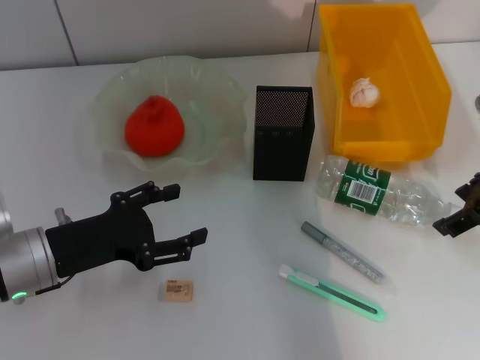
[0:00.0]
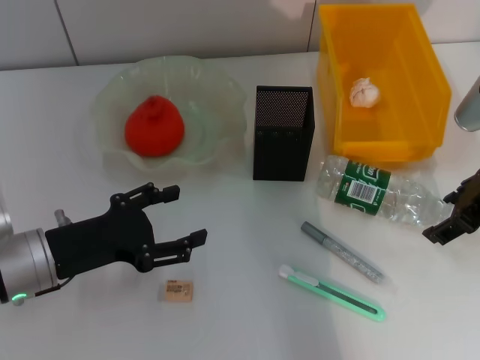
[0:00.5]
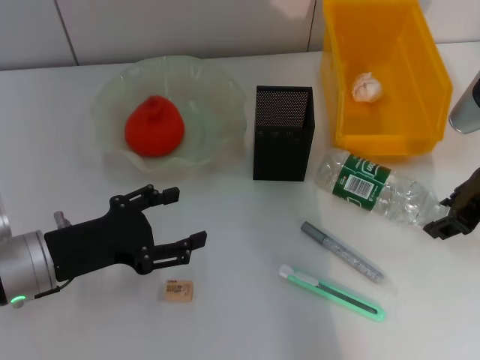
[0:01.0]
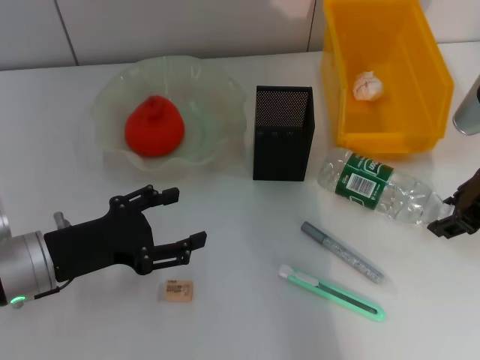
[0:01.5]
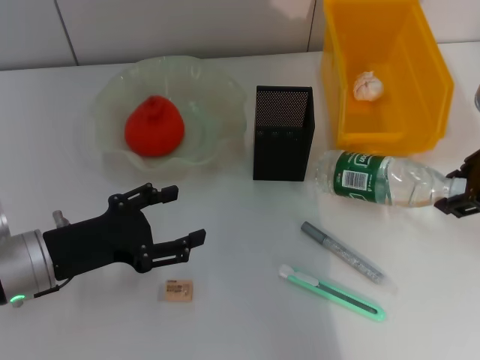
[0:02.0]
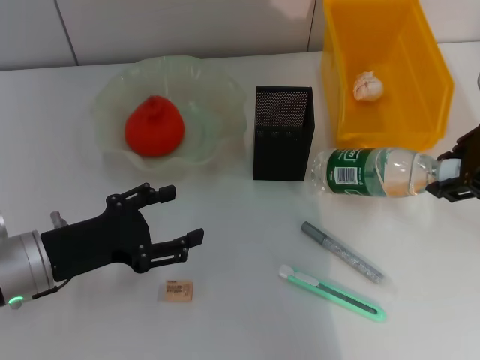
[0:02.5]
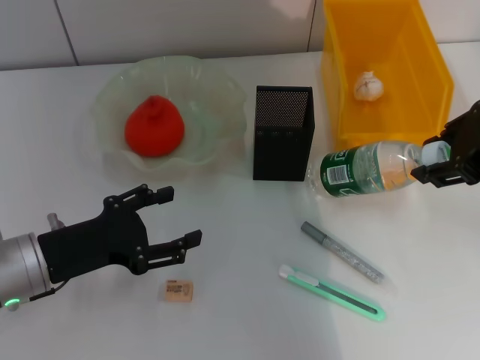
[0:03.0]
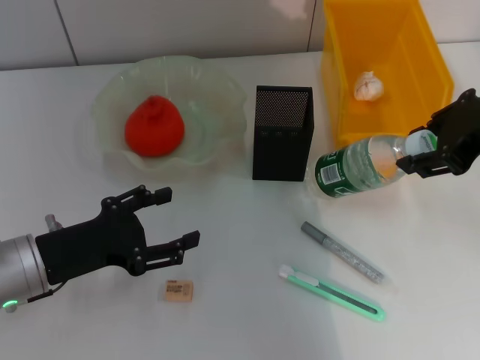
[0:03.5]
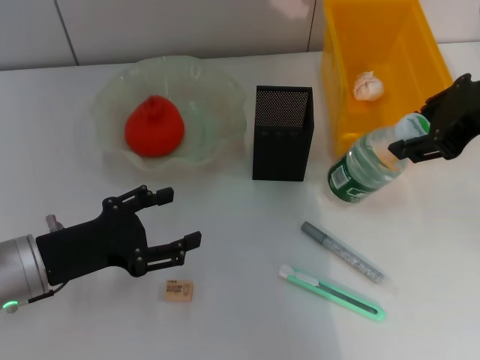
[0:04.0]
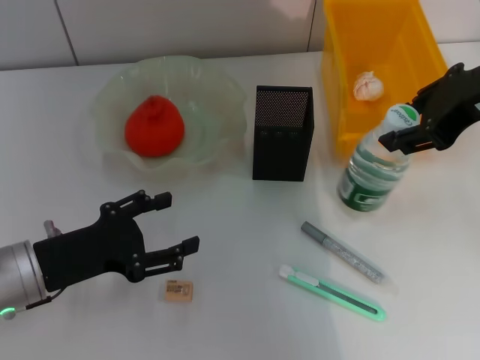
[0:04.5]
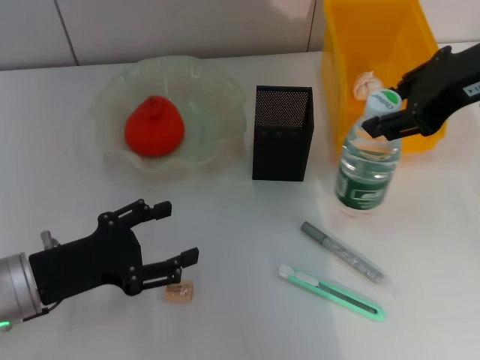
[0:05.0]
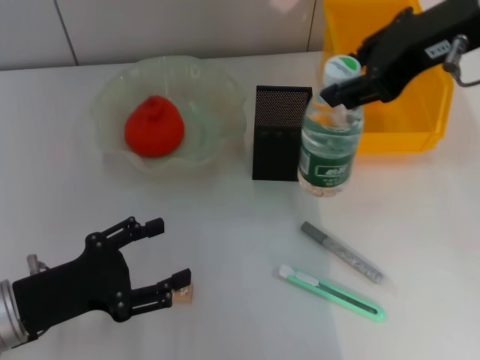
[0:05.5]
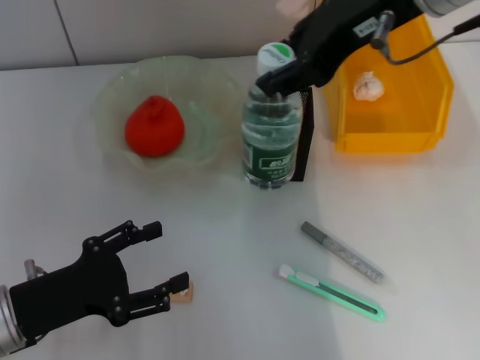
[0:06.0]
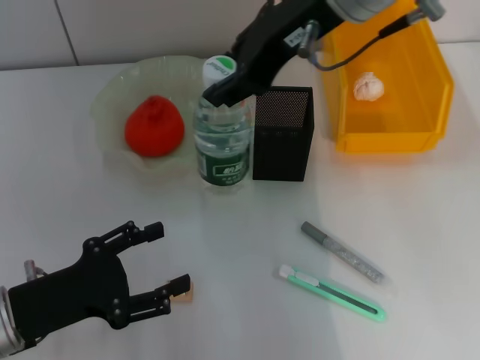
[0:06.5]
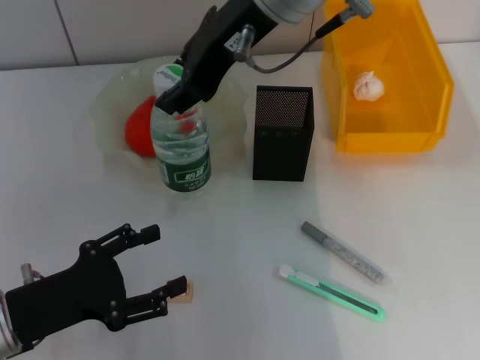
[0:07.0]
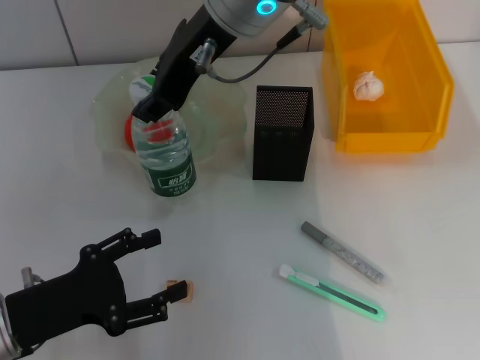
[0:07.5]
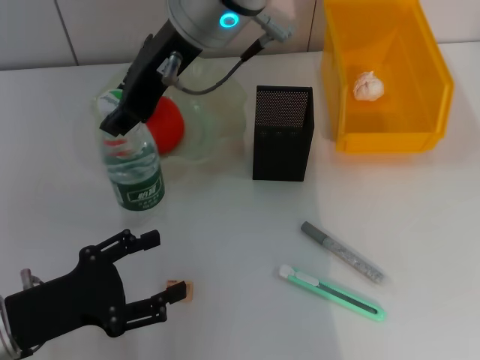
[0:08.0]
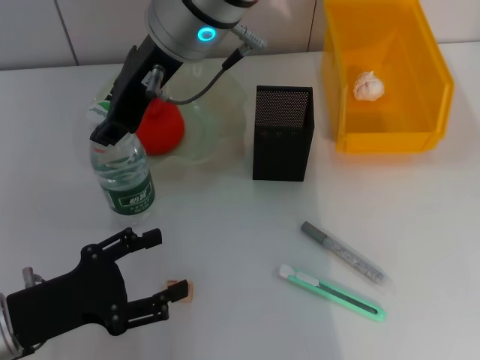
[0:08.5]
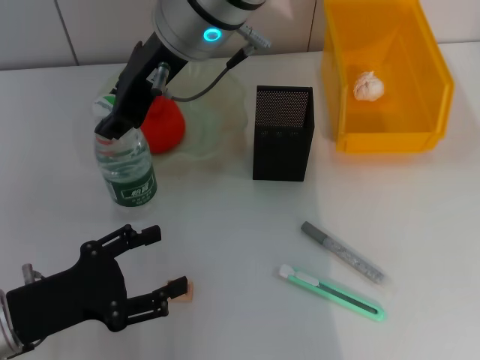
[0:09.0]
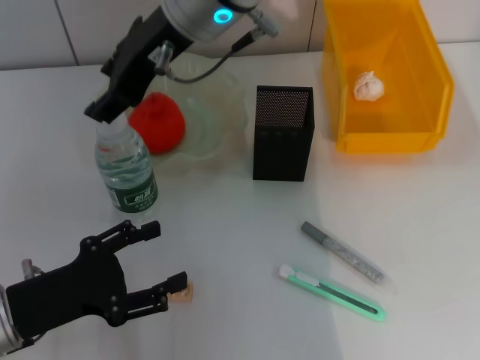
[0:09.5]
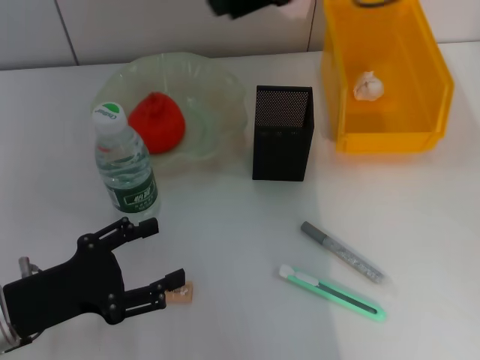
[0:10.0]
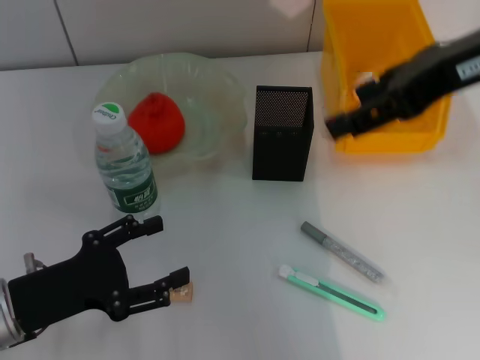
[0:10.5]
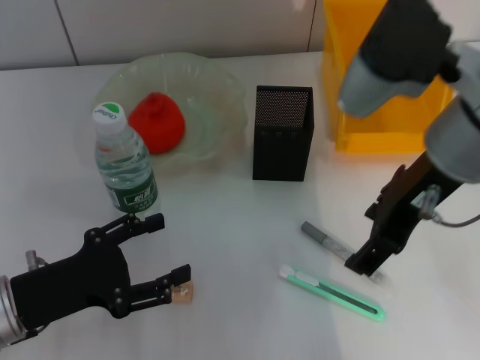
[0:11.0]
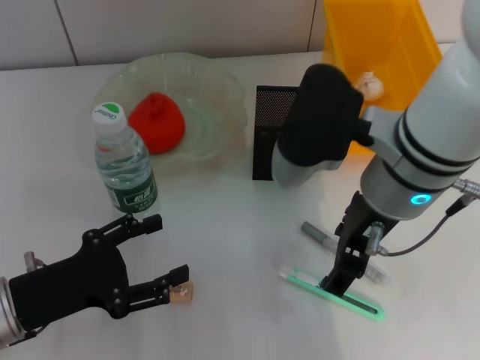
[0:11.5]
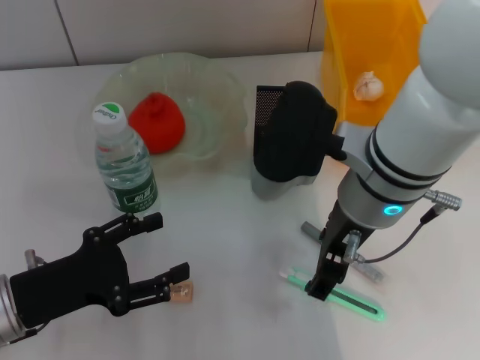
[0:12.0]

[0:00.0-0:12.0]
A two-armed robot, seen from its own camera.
Step, 0:02.0 to 0:09.0: Place the water bottle on the table with the right hand.
0:00.0 to 0:02.0: The right gripper closes its fingers.
0:02.0 to 0:04.0: The right gripper travels upward by approximately 5 cm.
0:04.0 to 0:06.0: The right gripper is displaced to the left and upward by roughly 15 cm, while the left gripper shifts by some 5 cm.
0:06.0 to 0:08.0: The right gripper goes roughly 15 cm to the left.
0:08.0 to 0:10.0: The right gripper travels to the right by some 15 cm, and opens.
0:10.0 to 0:12.0: The right gripper heads downward, covering roughly 15 cm.

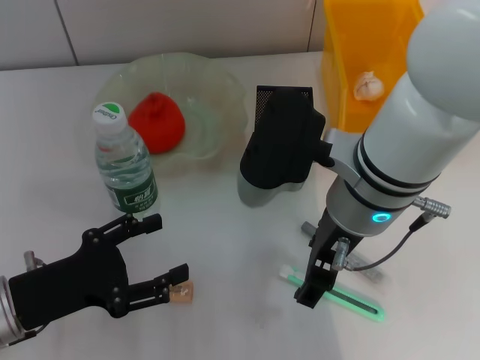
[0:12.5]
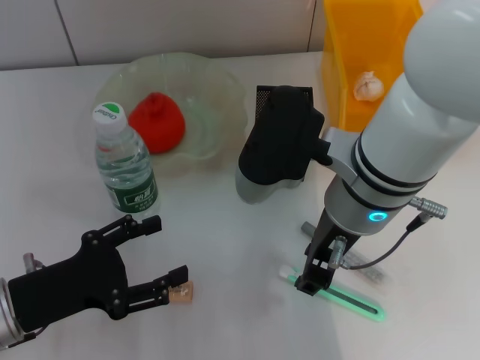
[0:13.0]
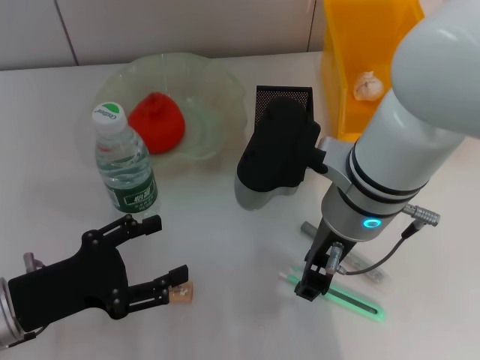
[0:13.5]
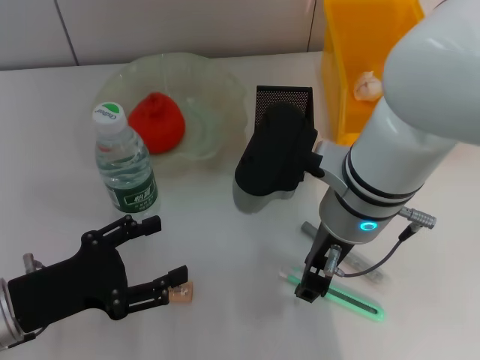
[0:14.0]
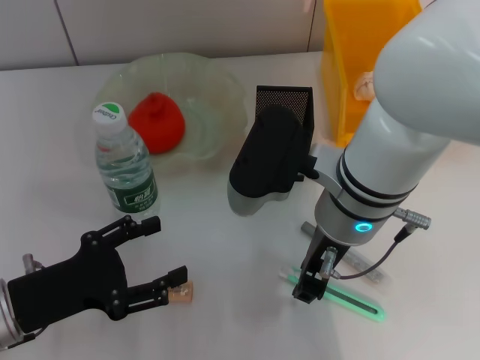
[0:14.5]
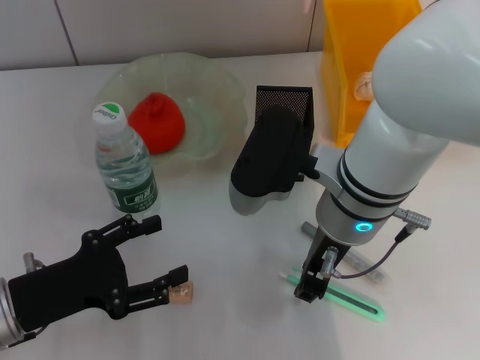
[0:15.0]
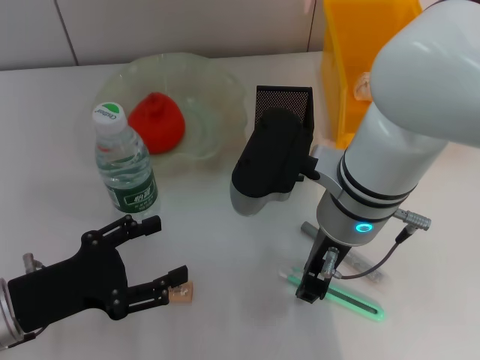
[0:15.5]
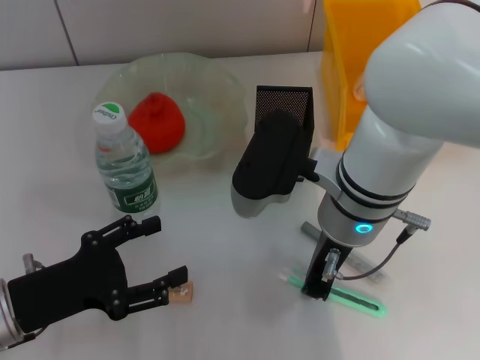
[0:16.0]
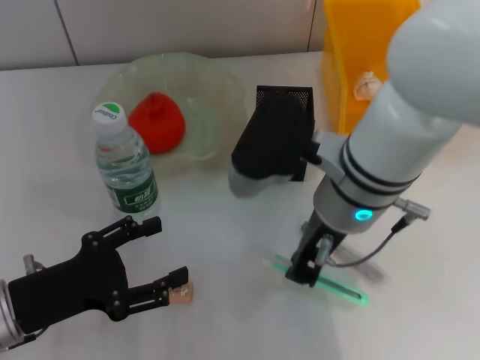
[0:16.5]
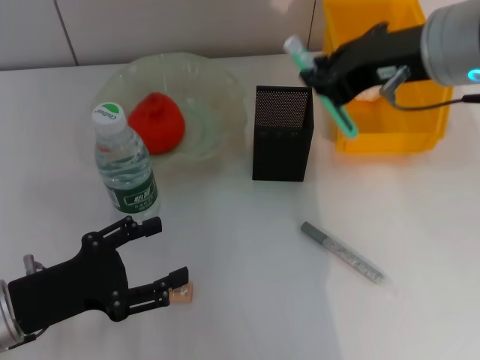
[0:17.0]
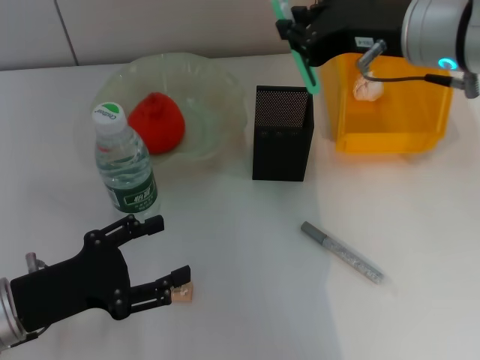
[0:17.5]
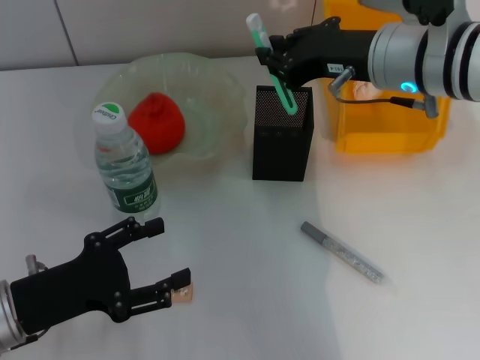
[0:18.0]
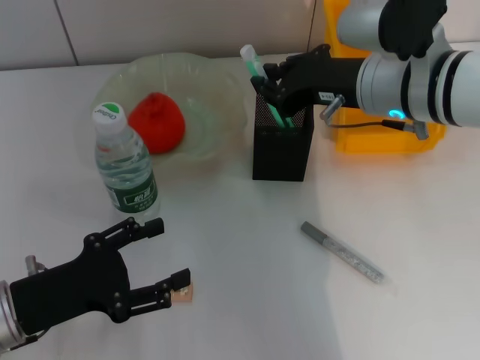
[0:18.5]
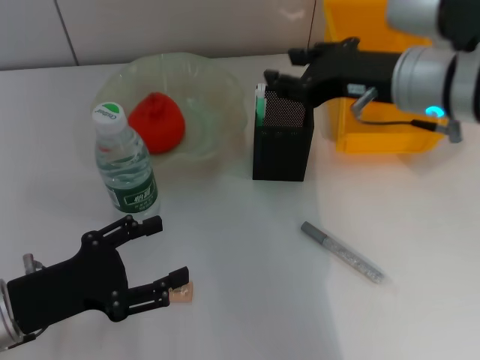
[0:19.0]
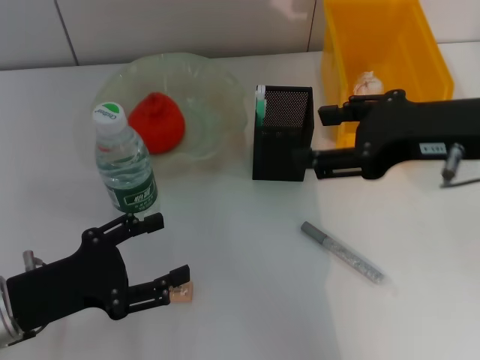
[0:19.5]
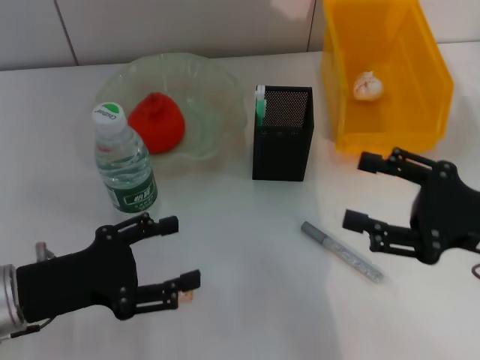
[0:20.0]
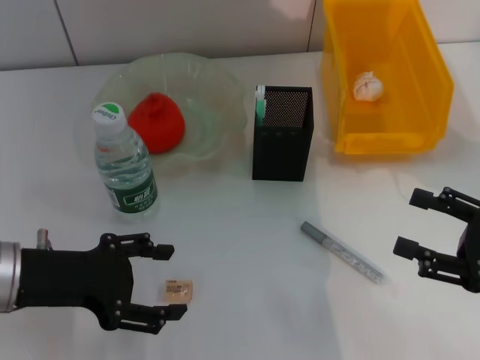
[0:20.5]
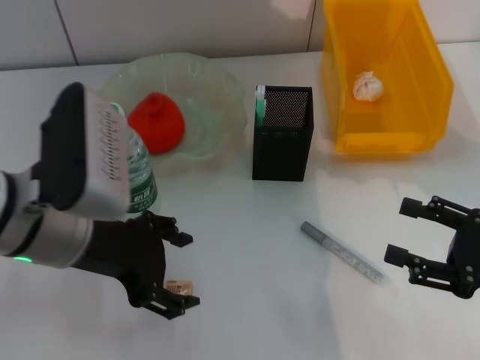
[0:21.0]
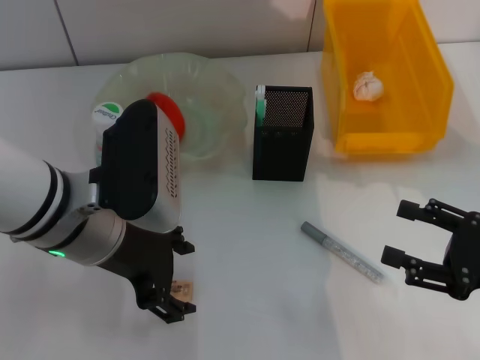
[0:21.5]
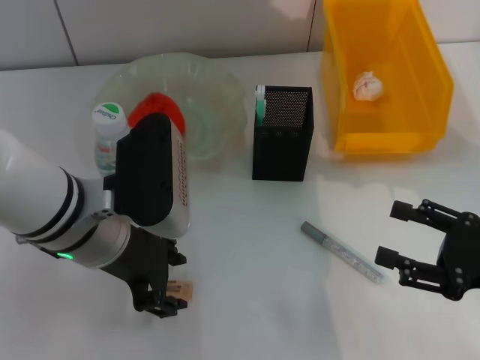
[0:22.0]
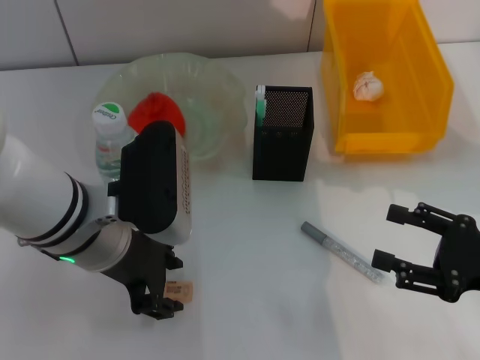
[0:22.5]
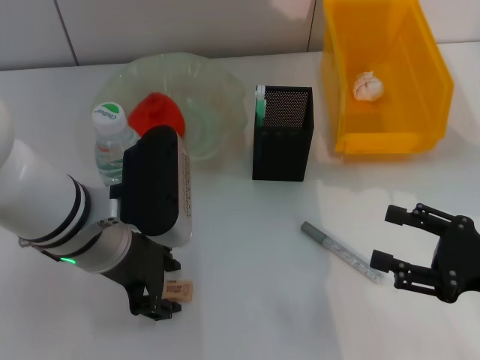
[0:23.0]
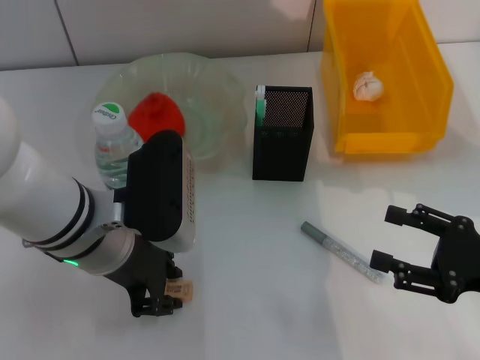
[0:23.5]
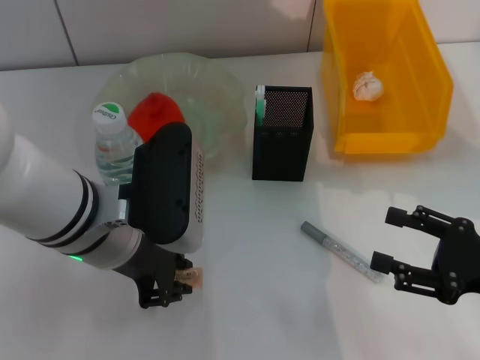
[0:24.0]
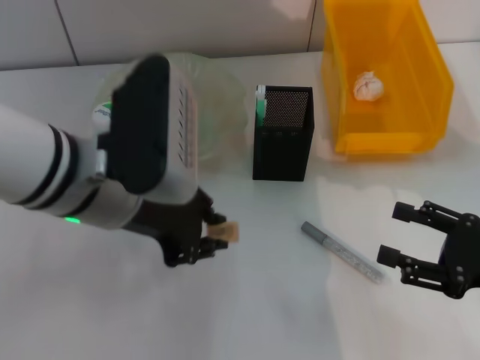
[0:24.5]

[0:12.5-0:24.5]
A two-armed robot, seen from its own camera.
Step, 0:12.5 to 0:16.0: Grab the blue utility knife with the right hand.
Step, 0:16.5 to 0:18.5: Place the blue utility knife into the pen holder with the right hand.
Step, 0:19.0 to 0:24.0: Grab the eraser with the left hand.
0:12.5 to 0:14.5: The right gripper closes its fingers.
0:14.5 to 0:16.5: Both grippers stay about where they are.
0:16.5 to 0:18.5: The right gripper shifts roughly 10 cm to the right and forward, and travels upward and back again, about 10 cm each way.
0:18.5 to 0:20.5: The left gripper shifts roughly 5 cm upward, while the right gripper travels to the right, backward and downward by some 25 cm, and opens its fingers.
0:20.5 to 0:22.5: The left gripper travels to the right by some 10 cm.
0:22.5 to 0:24.5: The left gripper closes.

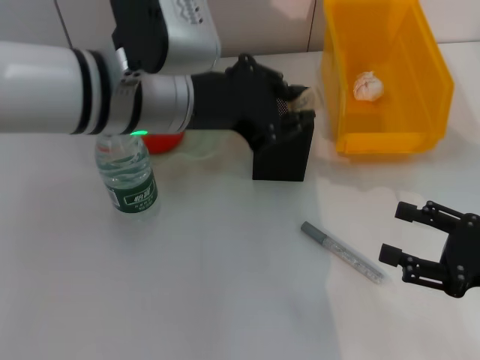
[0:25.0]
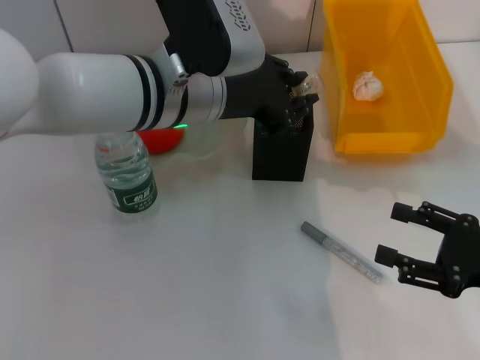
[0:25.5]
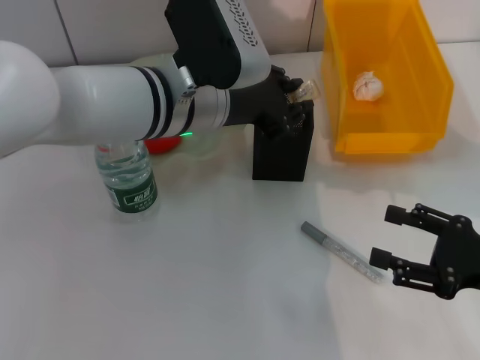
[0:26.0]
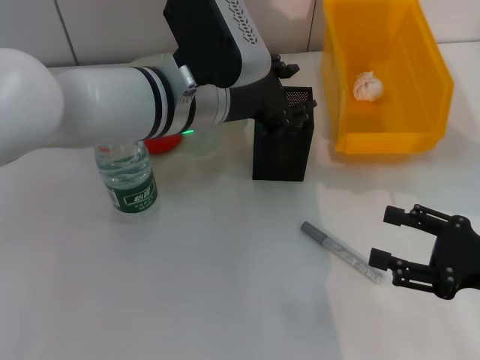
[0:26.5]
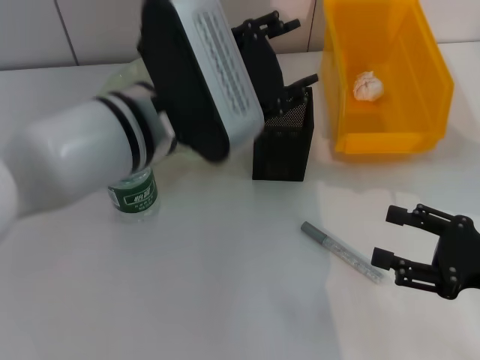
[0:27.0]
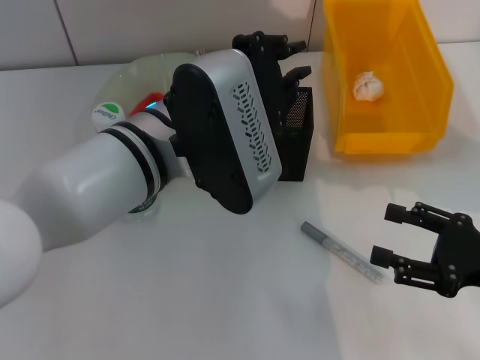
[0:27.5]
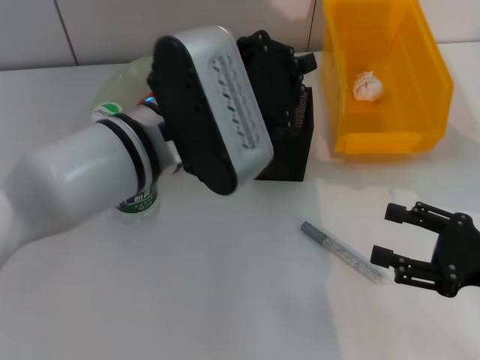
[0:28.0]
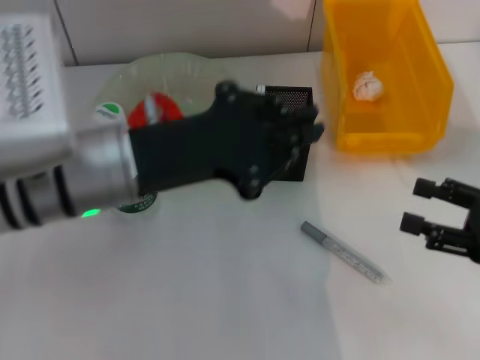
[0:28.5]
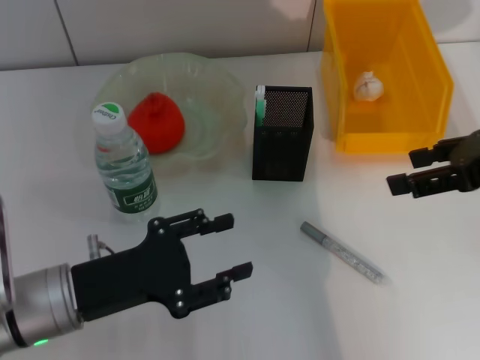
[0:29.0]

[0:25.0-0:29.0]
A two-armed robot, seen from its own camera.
0:25.0 to 0:27.0: The left gripper opens.
0:27.0 to 0:29.0: The right gripper goes some 15 cm upward and forward. Meanwhile the left gripper shifts about 20 cm to the left, downward and backward, and closes and opens again.
